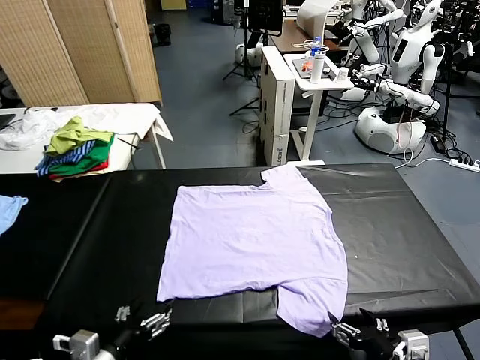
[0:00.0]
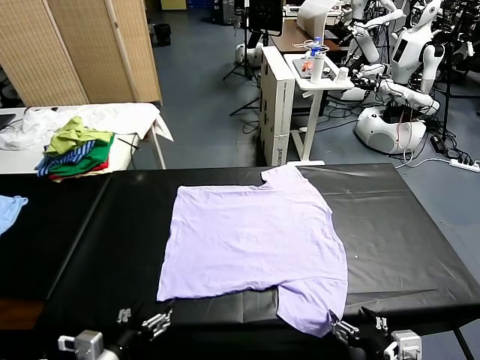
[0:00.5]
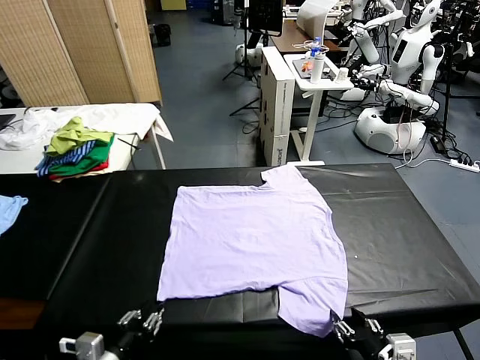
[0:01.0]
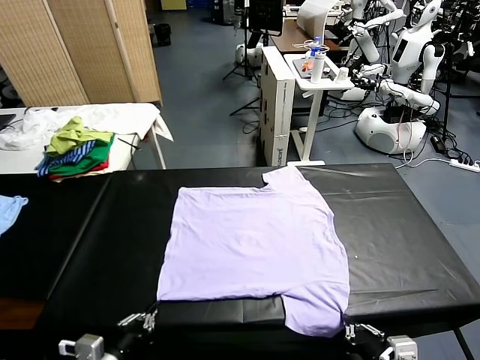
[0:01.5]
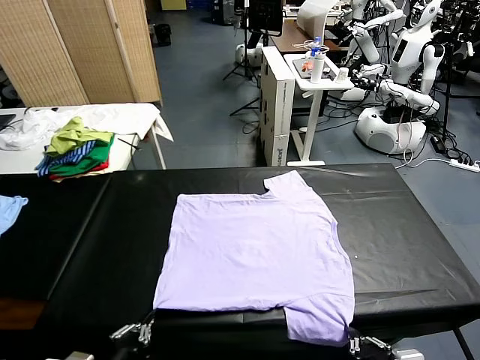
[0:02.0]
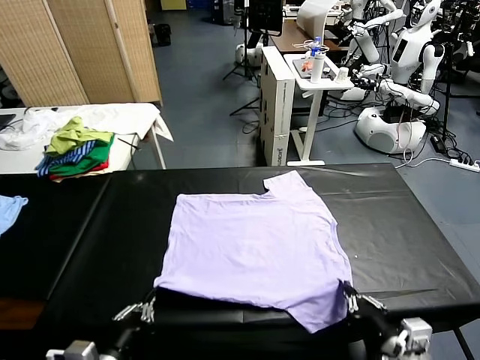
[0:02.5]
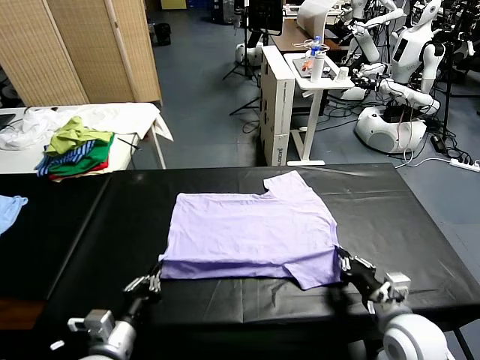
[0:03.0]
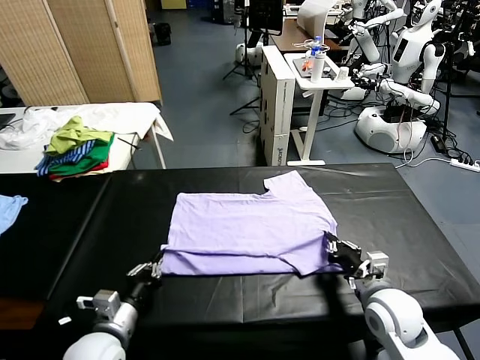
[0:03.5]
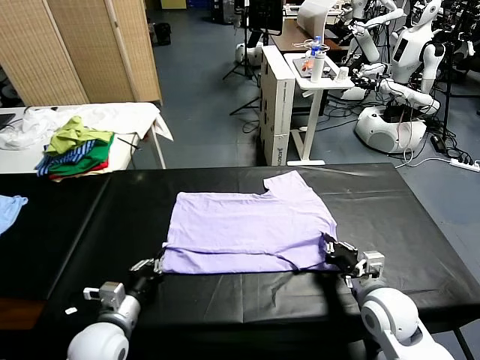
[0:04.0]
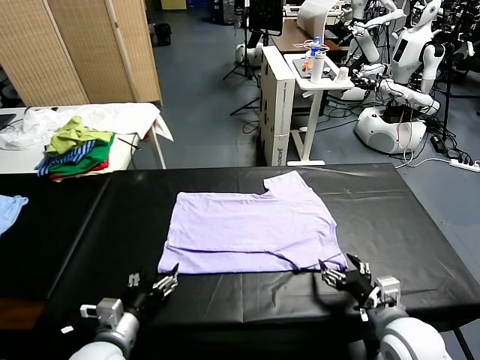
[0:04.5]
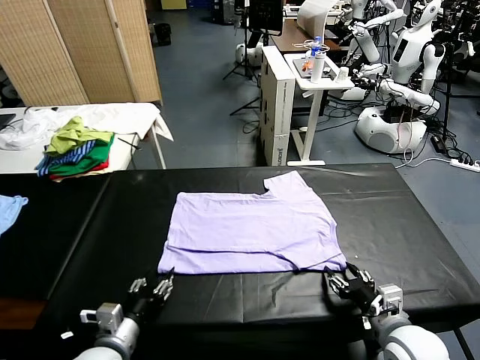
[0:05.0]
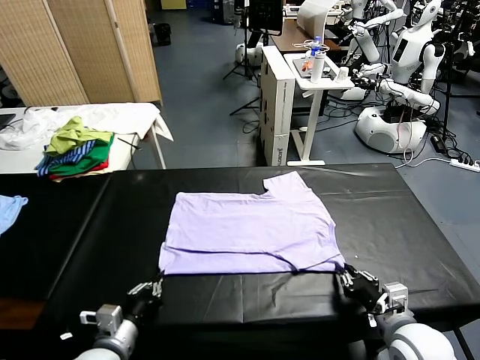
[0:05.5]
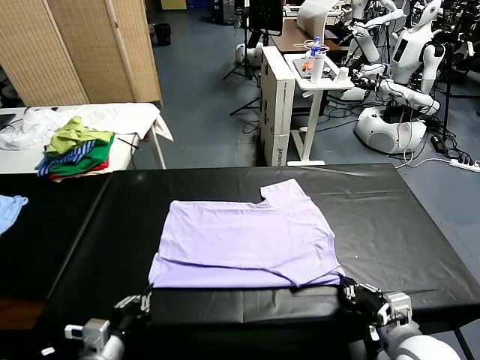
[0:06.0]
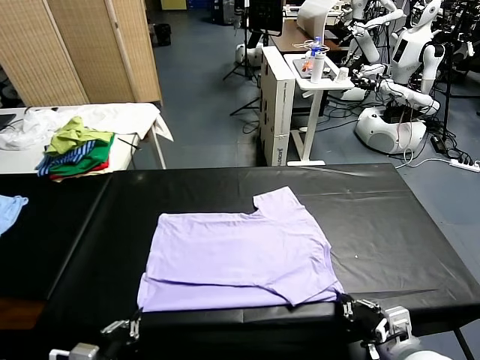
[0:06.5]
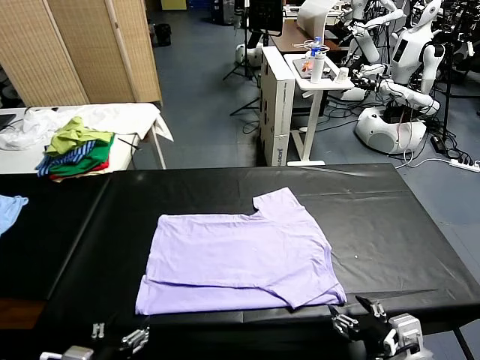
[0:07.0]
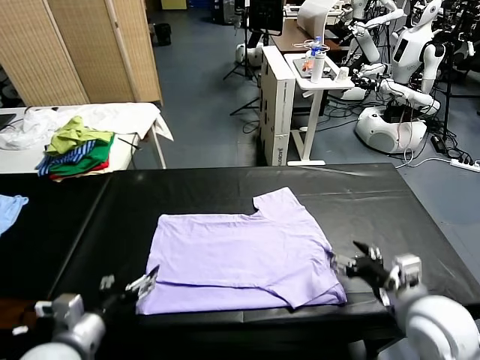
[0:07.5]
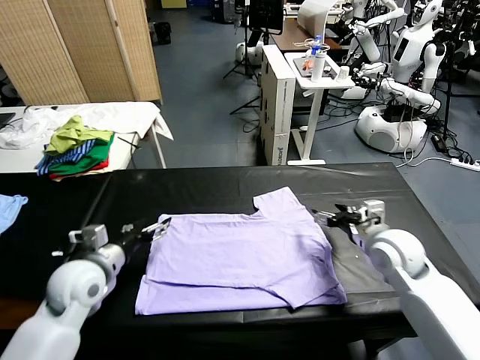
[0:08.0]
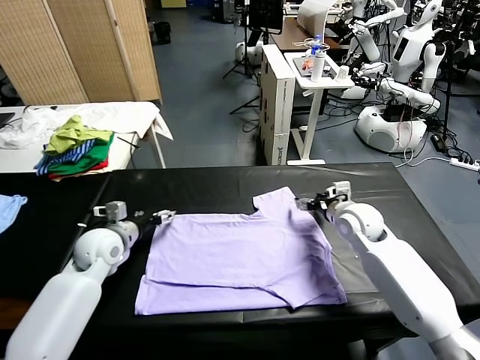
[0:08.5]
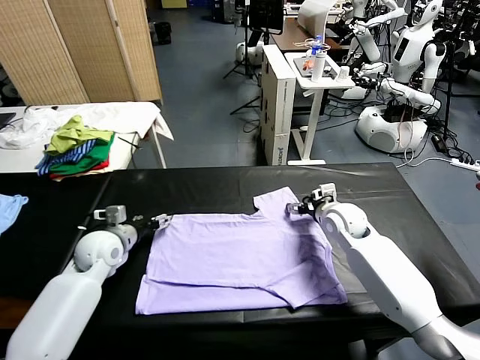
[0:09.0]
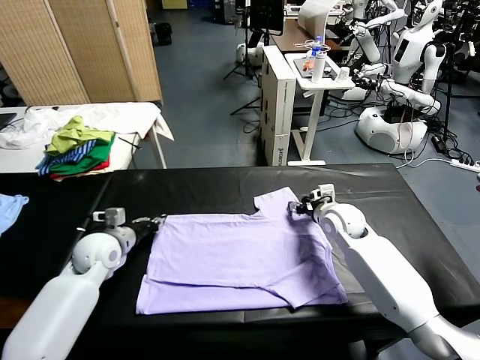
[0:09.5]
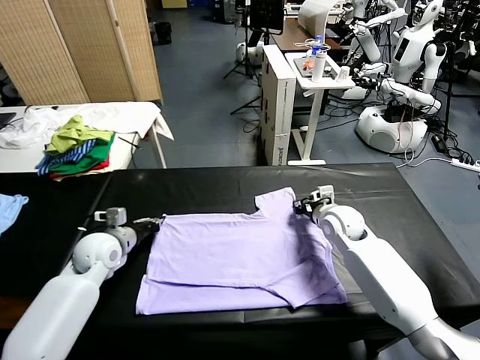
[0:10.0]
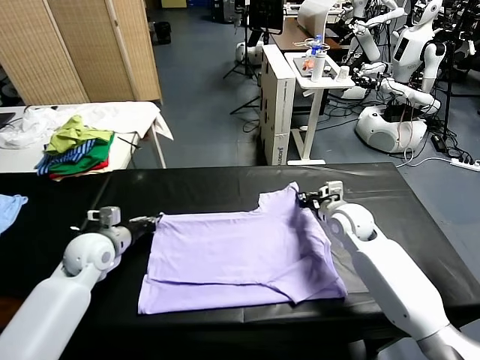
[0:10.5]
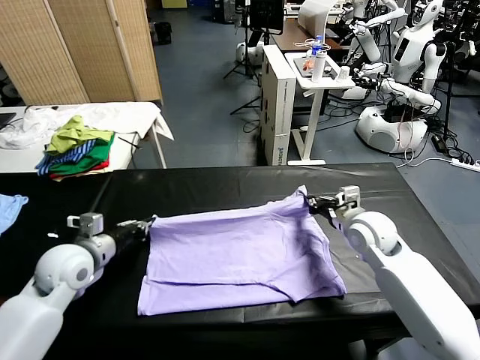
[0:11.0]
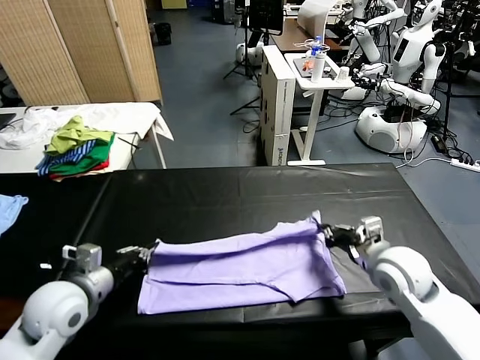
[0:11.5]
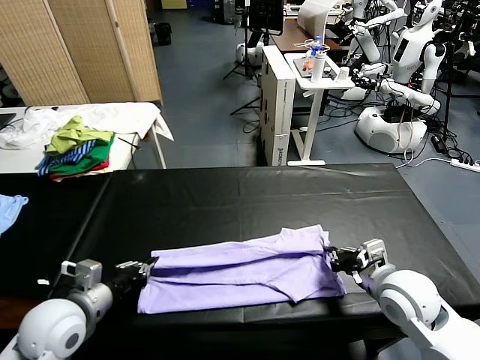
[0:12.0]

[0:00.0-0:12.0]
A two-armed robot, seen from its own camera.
Task of the whole recording: fold and organize the clothes.
Step, 0:00.0 to 0:01.5: use both grippers simultaneously to clamp the lower edge of the clothing fabric.
Step, 0:02.0 to 0:04.0: use both grippers to drag the lower edge of the fabric forward and fold it over the upper edge.
Step, 0:04.5 to 0:06.5: Drag the clothes downward with both gripper.
Step, 0:07.0 to 0:10.0: use both grippers simultaneously to clamp the upper edge of the clothing fabric.
0:02.0 to 0:04.0: The right gripper is displaced forward by roughly 15 cm, and opens; the left gripper is displaced forward and downward by approximately 15 cm.
0:04.0 to 0:06.0: Both grippers move backward, roughly 10 cm. The right gripper closes its fingers. The left gripper opens and closes again.
0:06.0 to 0:08.0: Both grippers travel together forward, approximately 20 cm. The left gripper opens, while the right gripper opens up.
0:08.0 to 0:10.0: The grippers both shift forward by approximately 5 cm. The left gripper closes up, while the right gripper closes up.
0:10.0 to 0:12.0: Both grippers move backward, about 20 cm.

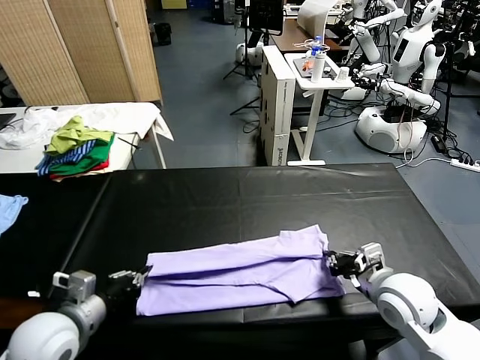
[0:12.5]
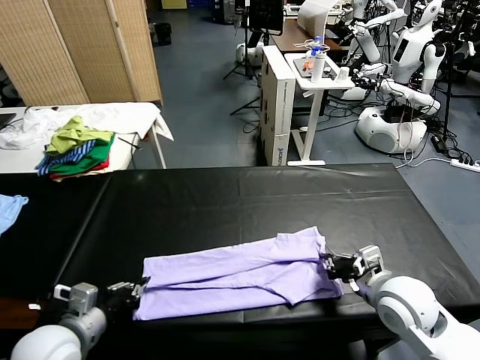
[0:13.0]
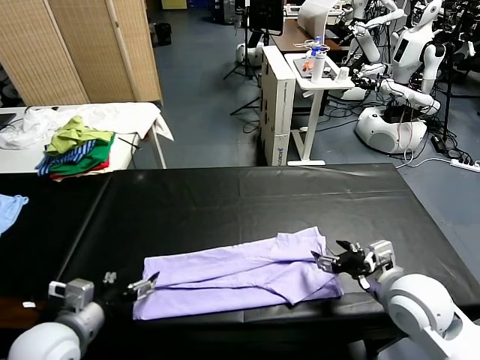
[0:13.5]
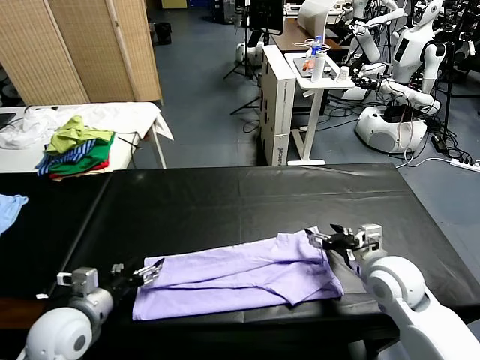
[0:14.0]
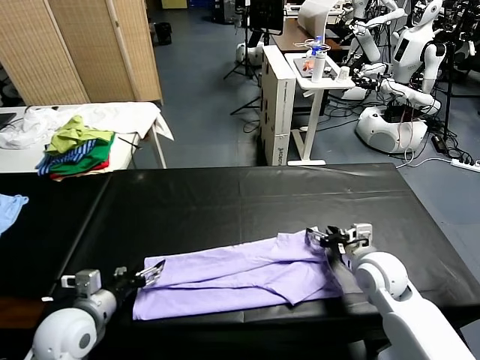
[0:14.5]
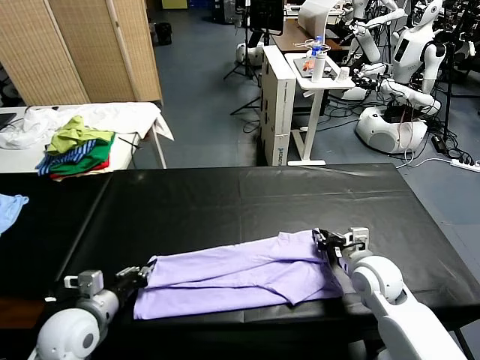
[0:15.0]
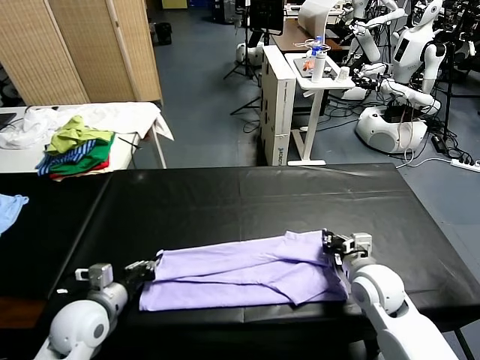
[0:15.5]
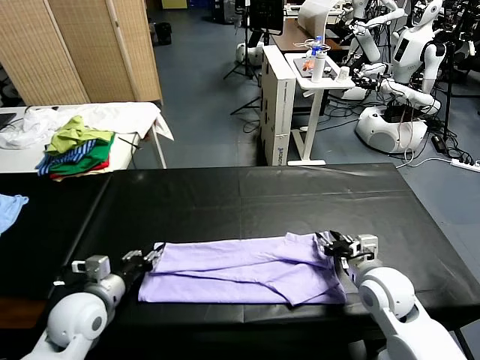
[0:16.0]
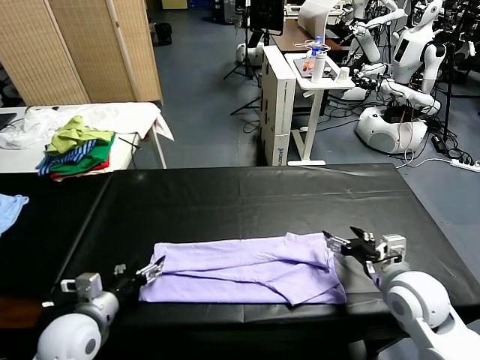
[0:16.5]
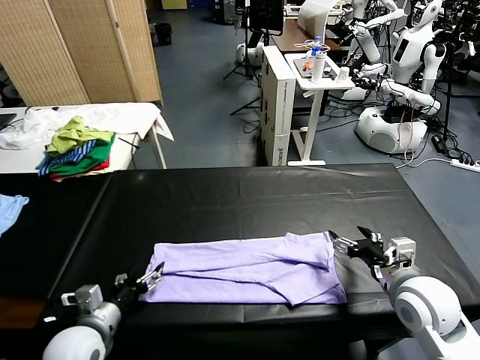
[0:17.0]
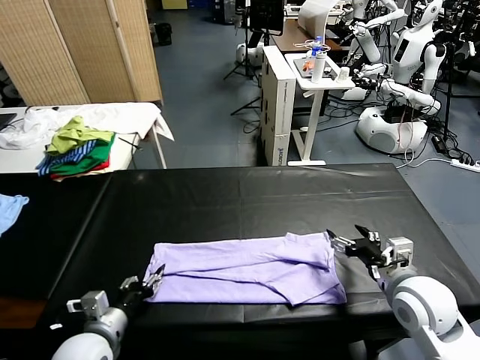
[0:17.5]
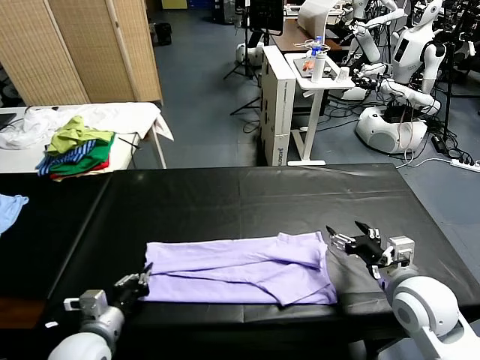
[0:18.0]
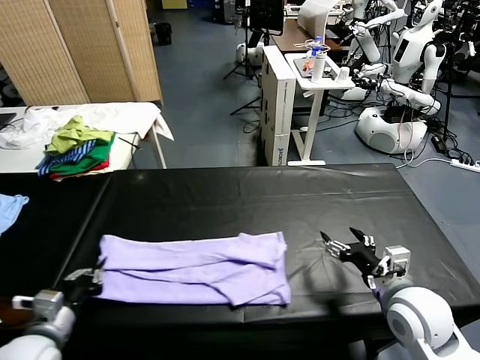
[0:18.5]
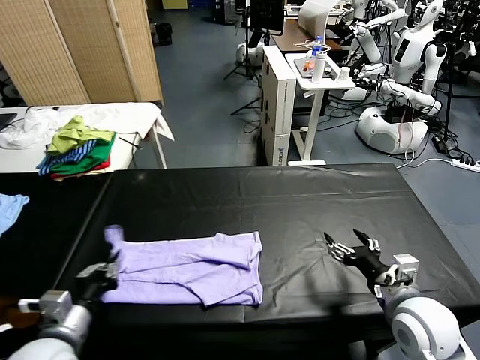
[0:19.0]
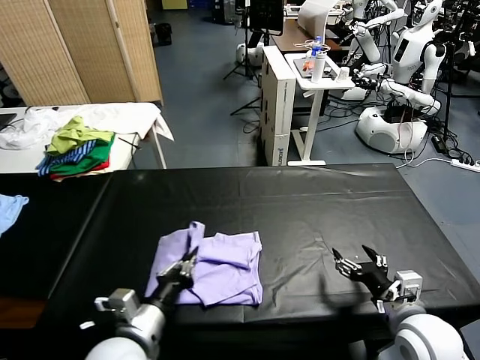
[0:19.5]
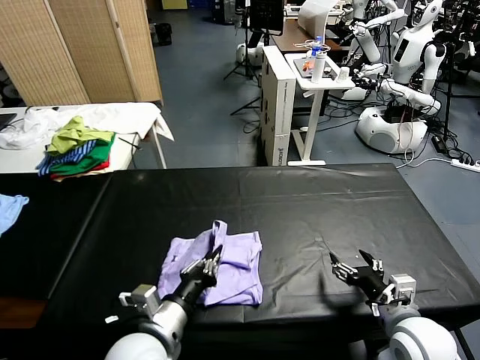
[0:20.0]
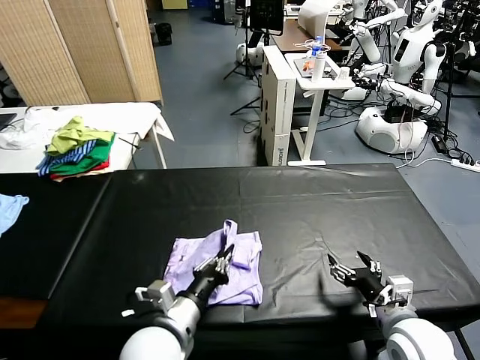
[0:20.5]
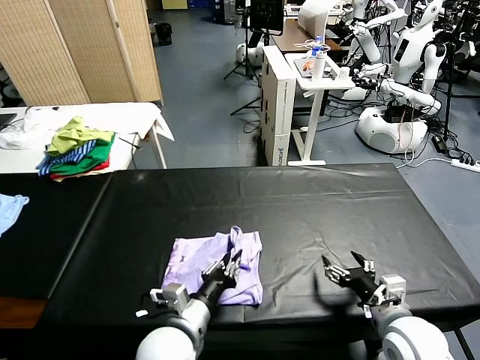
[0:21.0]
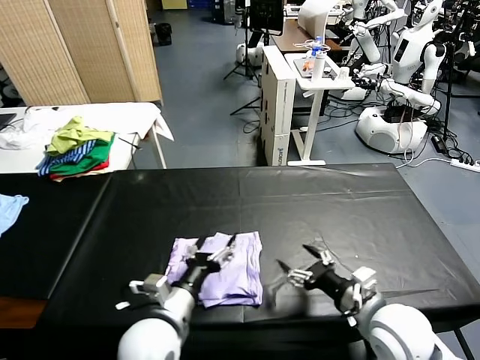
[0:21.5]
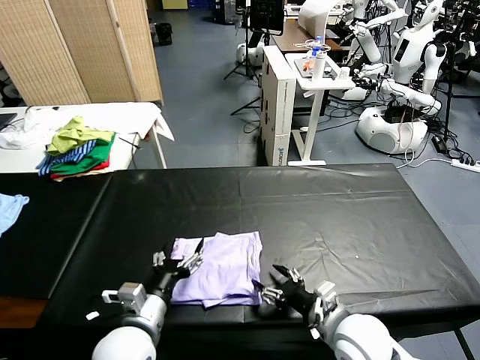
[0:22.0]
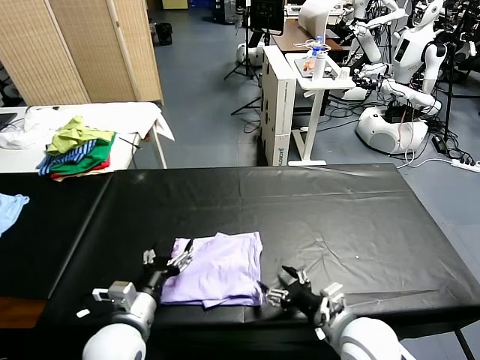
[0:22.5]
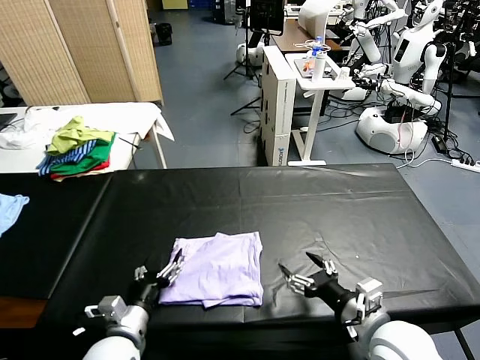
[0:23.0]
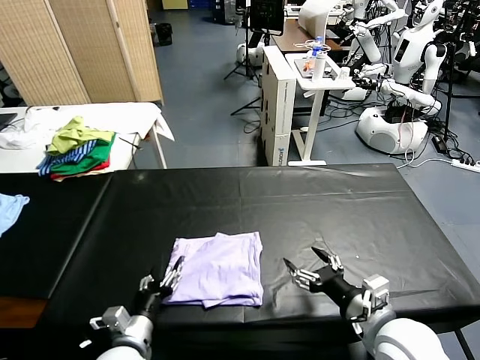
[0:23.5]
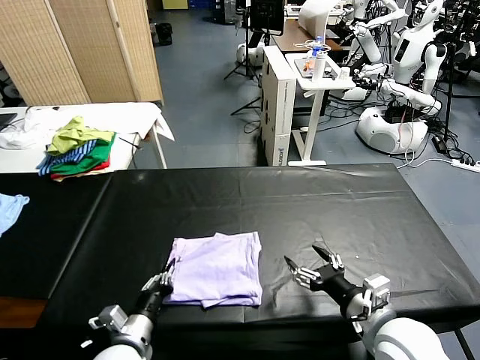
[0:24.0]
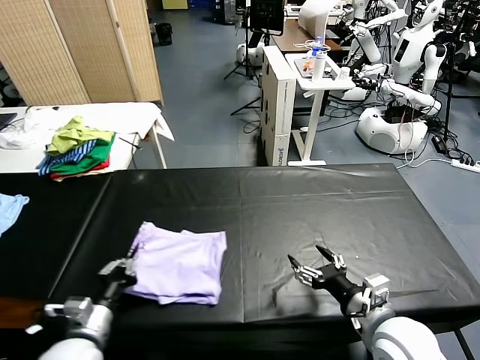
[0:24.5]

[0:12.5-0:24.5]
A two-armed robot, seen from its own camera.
Task of the whole recording: fold and organize the clothes.
Step, 0:13.5 to 0:17.5: use the left gripper to clamp the left edge of the fabric.
Step, 0:18.0 to 0:21.0: use the left gripper to drag the left edge of the fabric to the left and folds it over the right edge.
0:12.5 to 0:14.5: The right gripper travels forward by roughly 5 cm, and opens up; the left gripper shifts by roughly 5 cm, and opens.
0:14.5 to 0:16.5: The right gripper moves backward and upward, about 10 cm, and closes, then opens again. Meanwhile the left gripper closes, then reopens.
0:16.5 to 0:18.5: The left gripper moves to the left, some 5 cm, and closes its fingers.
0:18.5 to 0:20.5: The left gripper travels to the right by about 20 cm. Meanwhile the right gripper moves some 5 cm.
0:20.5 to 0:22.5: Both grippers travel together to the left, some 10 cm. The left gripper opens its fingers.
0:22.5 to 0:24.5: The right gripper ends up approximately 5 cm from where it was; the left gripper heads to the left, covering some 10 cm, and closes its fingers.

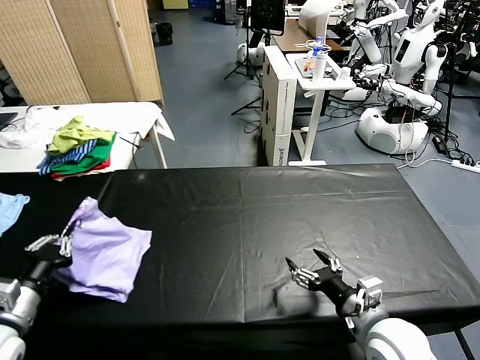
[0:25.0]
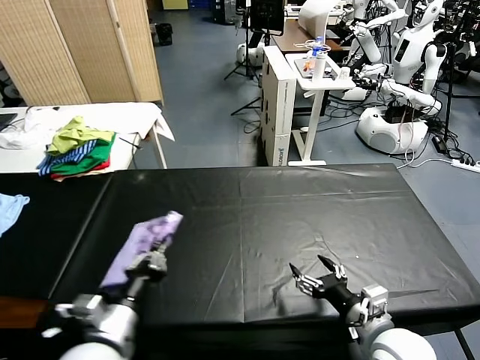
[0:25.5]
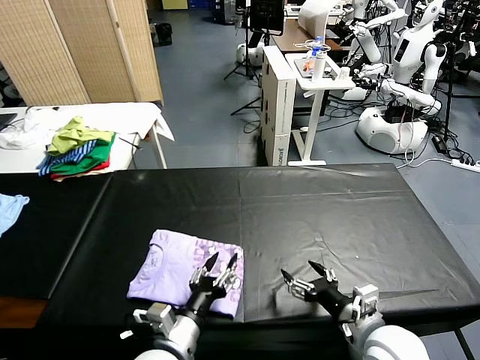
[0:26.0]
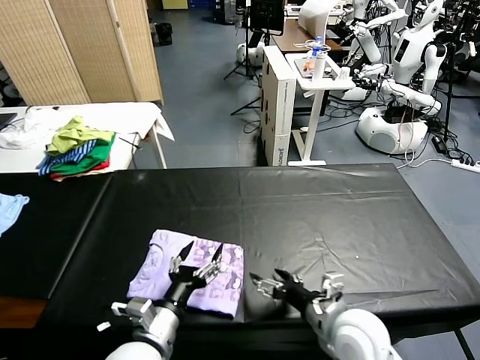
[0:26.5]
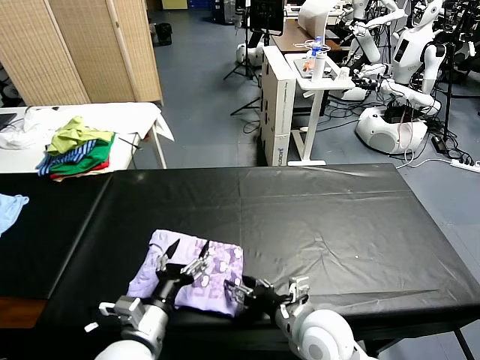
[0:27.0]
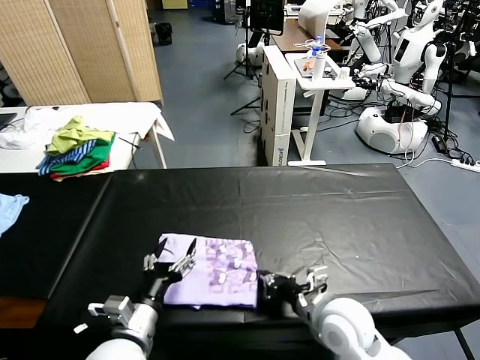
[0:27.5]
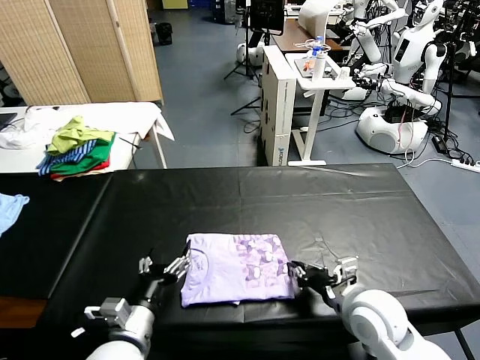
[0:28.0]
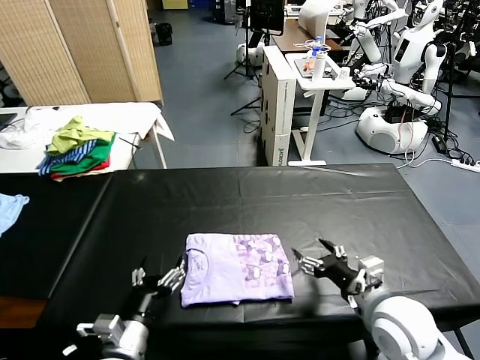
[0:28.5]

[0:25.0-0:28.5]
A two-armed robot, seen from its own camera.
Task of the whole recording: fold and organize the clothes.
Step, 0:26.5 to 0:28.0: Drag the clothes to the center of the table.
0:25.0 to 0:27.0: The left gripper is displaced to the right by roughly 20 cm, and opens its fingers; the right gripper shifts about 10 cm to the left.
0:27.0 to 0:28.5: The right gripper moves to the right and upward, roughly 15 cm, and closes, then opens again.